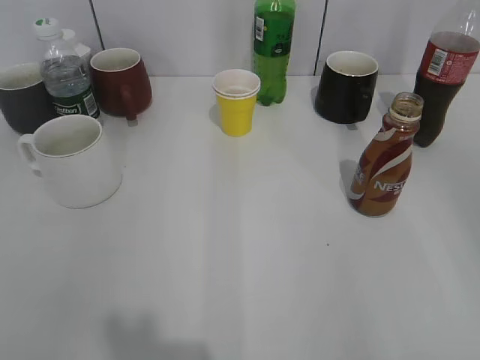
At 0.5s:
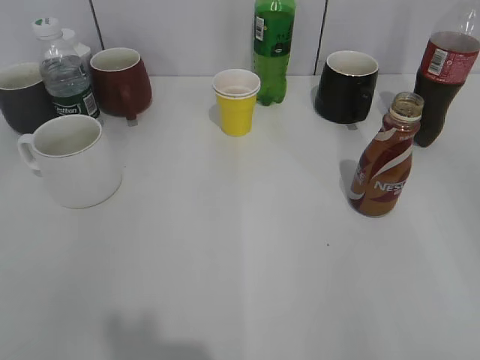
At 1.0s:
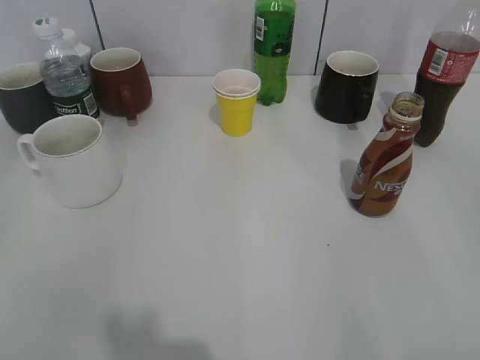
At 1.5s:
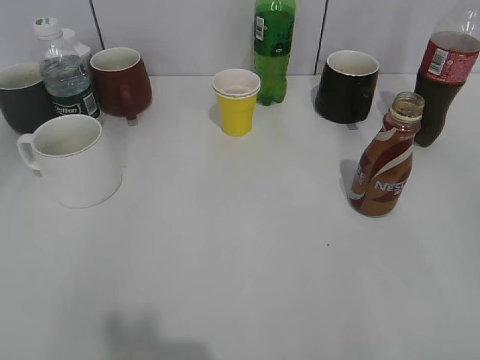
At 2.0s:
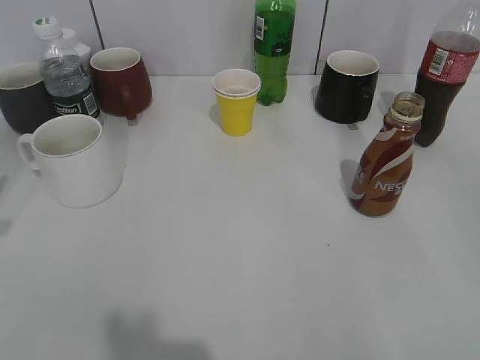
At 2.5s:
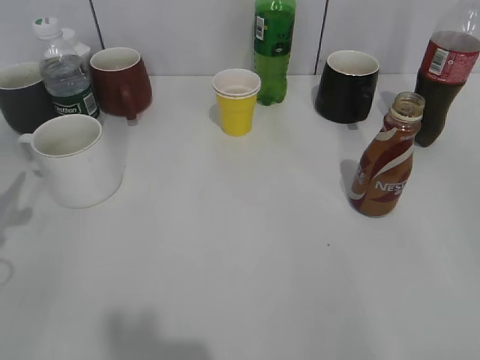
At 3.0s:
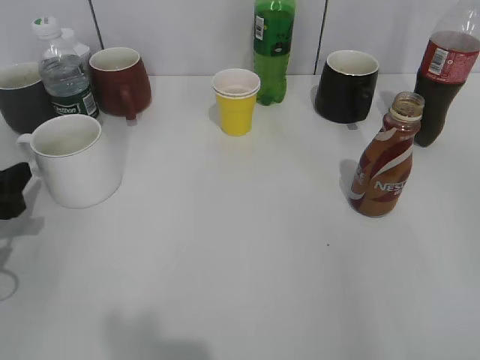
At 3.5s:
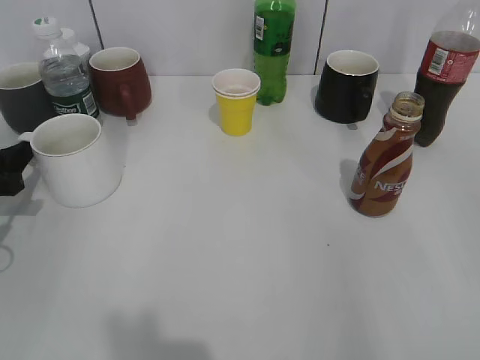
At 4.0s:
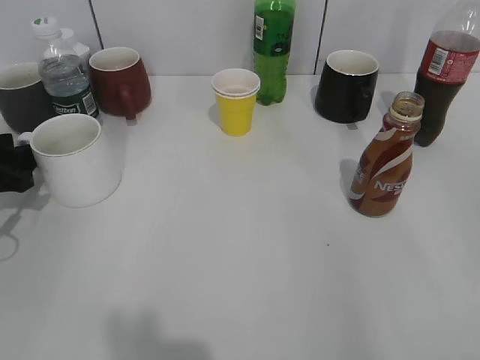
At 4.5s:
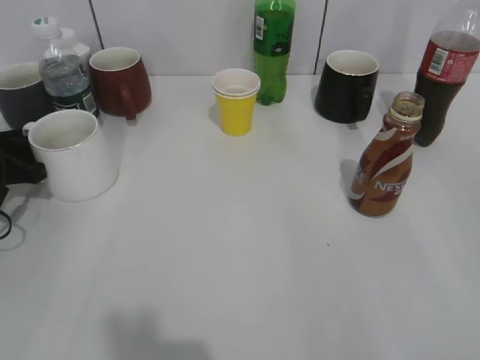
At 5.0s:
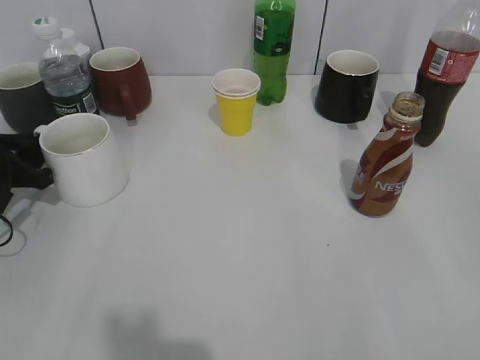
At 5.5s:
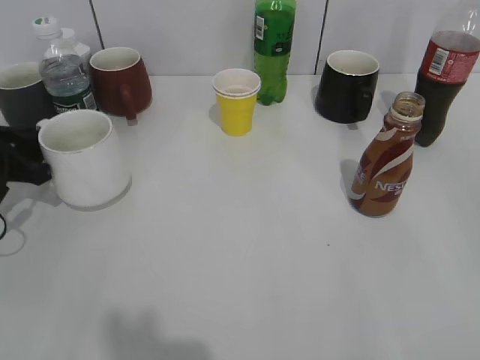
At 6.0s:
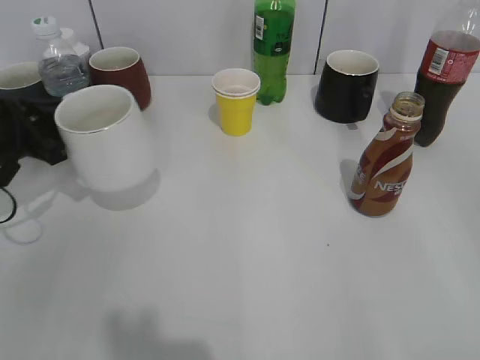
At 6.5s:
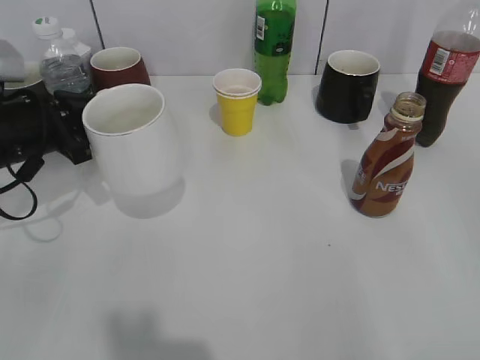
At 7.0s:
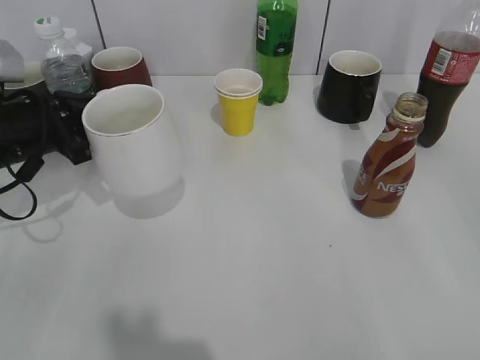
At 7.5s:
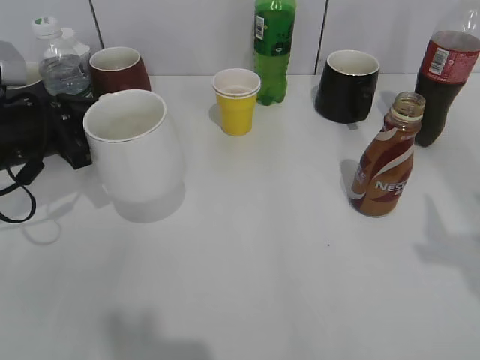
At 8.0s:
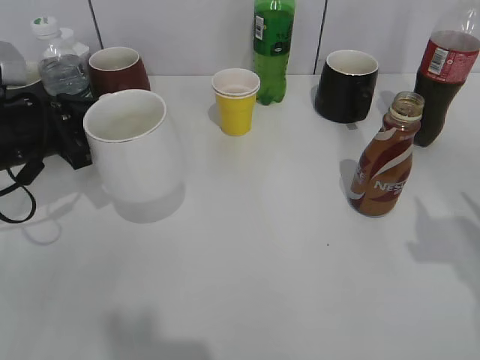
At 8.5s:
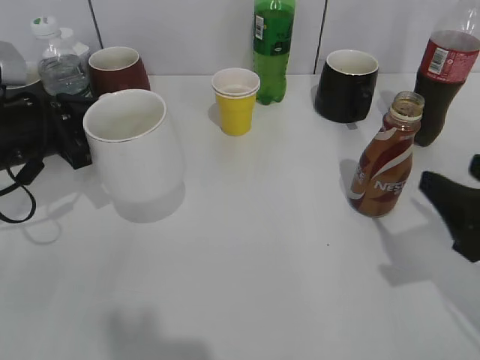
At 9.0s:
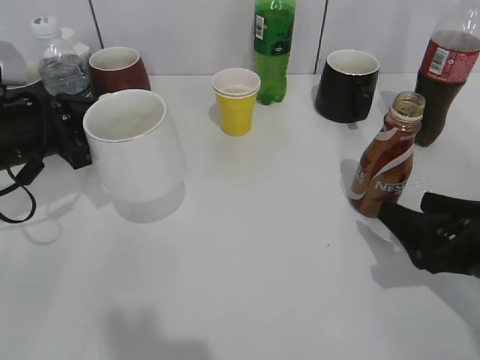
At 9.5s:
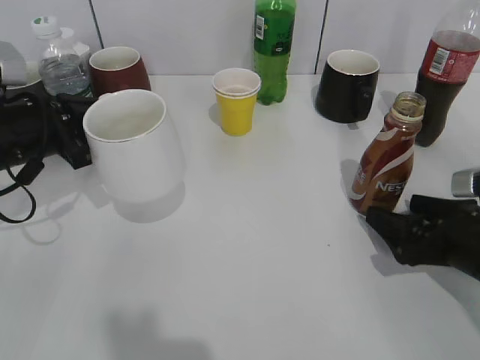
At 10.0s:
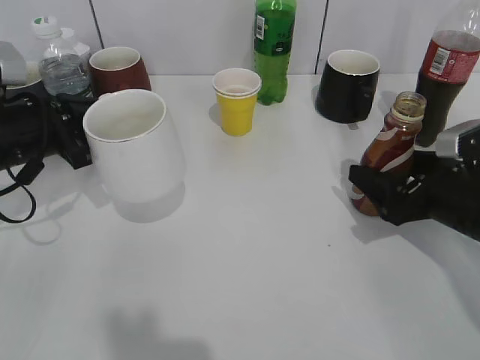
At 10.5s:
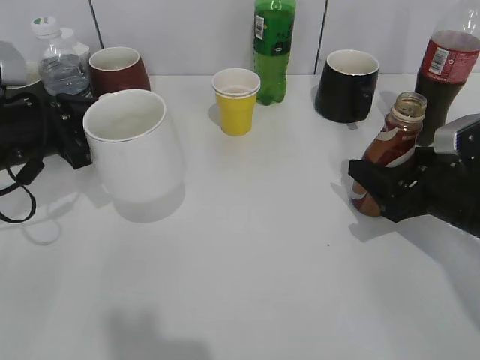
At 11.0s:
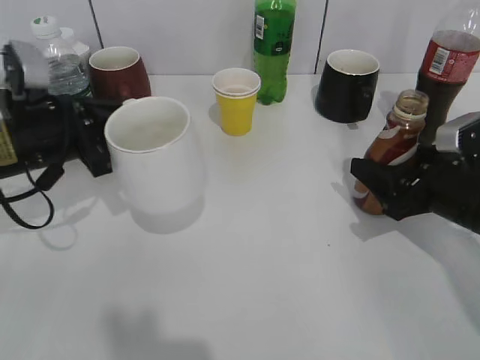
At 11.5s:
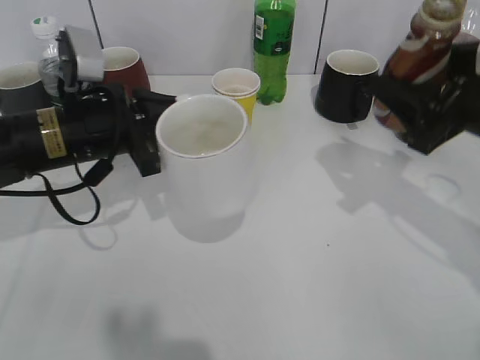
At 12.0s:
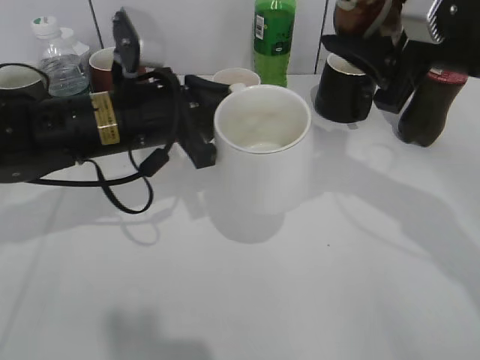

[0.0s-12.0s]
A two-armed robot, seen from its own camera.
Step, 2.0s to 5.0s: Grasp the white cup with left gripper.
Step, 5.5s to 6.5s: Lift the white cup with left gripper.
Step, 7.0s to 11.0s: Grasp the bottle with coffee with right gripper.
2.0s to 4.0s: The left gripper travels forward and downward by roughly 15 cm.
4.0s to 6.0s: The left gripper shifts by roughly 5 cm, and closes.
6.0s to 8.0s: The right gripper travels forward by some 15 cm.
8.0s to 10.0s: The right gripper moves downward and forward, about 15 cm, and opens its fingers.
10.0s to 12.0s: The right gripper is displaced upward by some 15 cm, and closes up, while the left gripper is displaced to the right by about 15 cm.

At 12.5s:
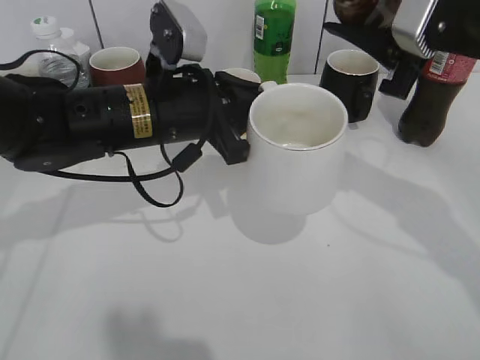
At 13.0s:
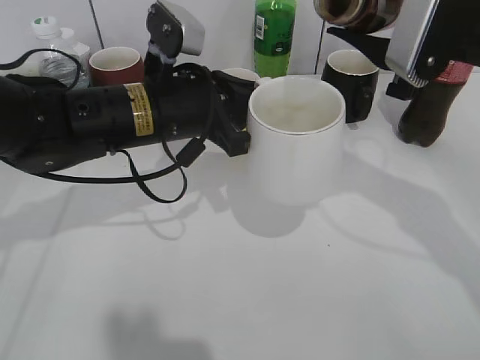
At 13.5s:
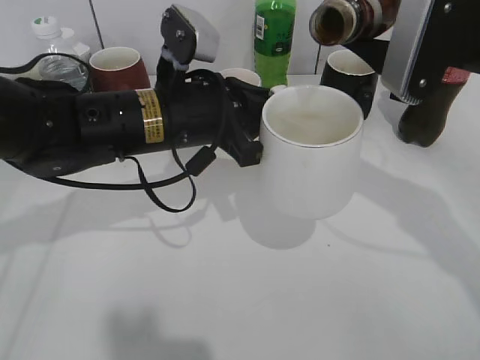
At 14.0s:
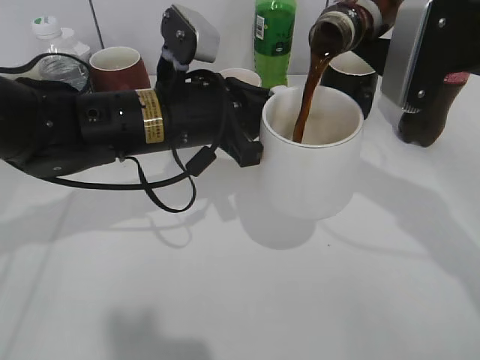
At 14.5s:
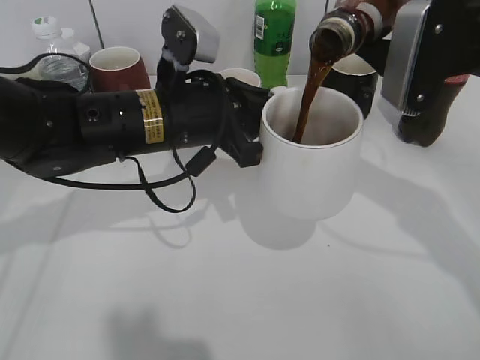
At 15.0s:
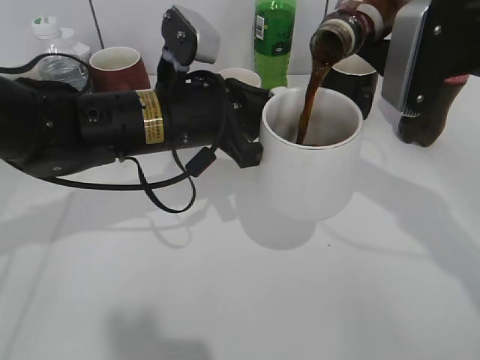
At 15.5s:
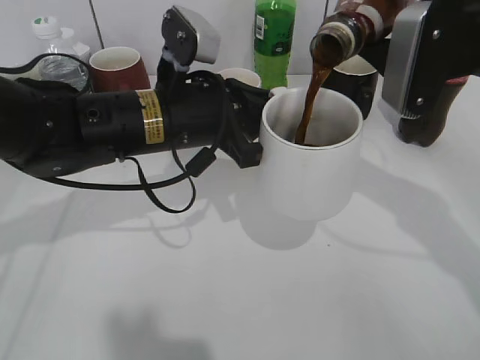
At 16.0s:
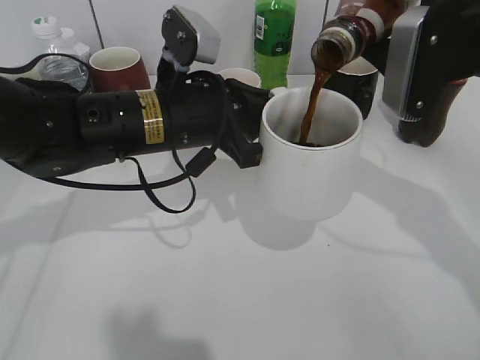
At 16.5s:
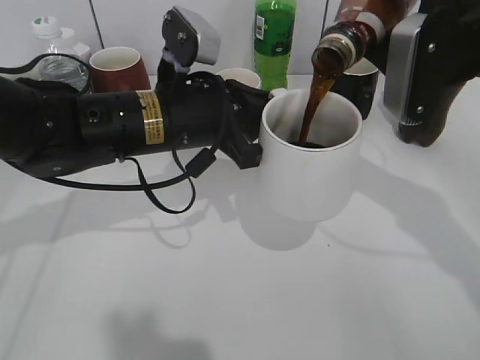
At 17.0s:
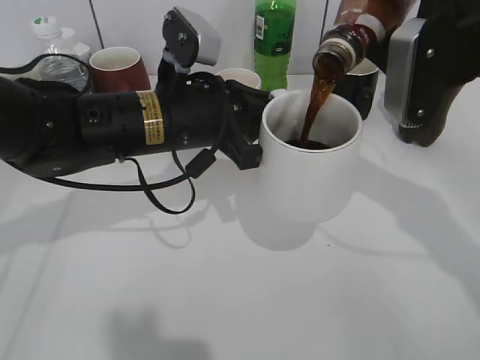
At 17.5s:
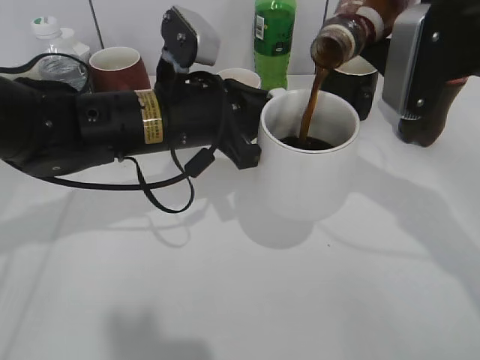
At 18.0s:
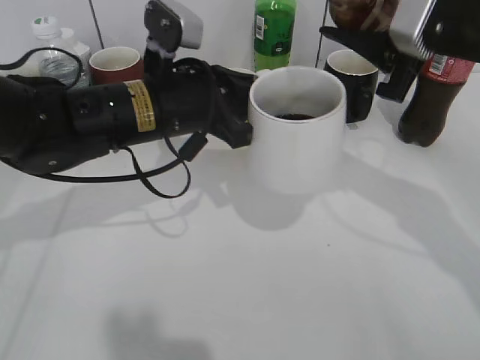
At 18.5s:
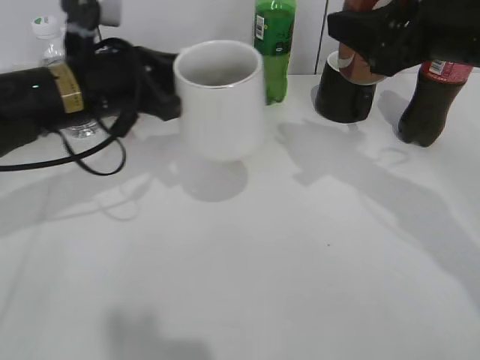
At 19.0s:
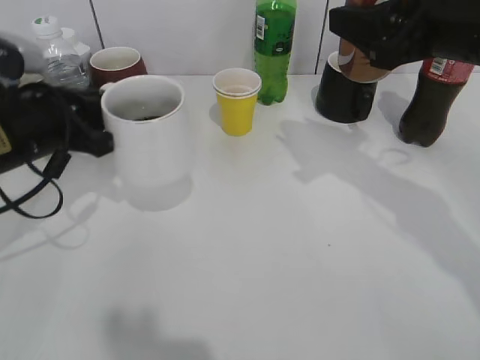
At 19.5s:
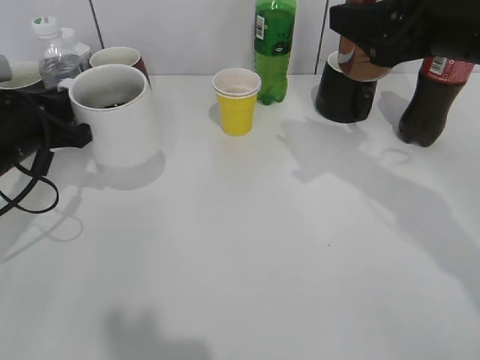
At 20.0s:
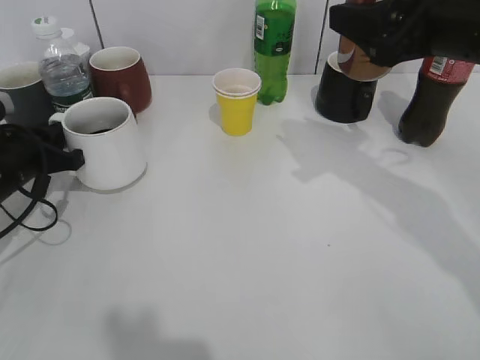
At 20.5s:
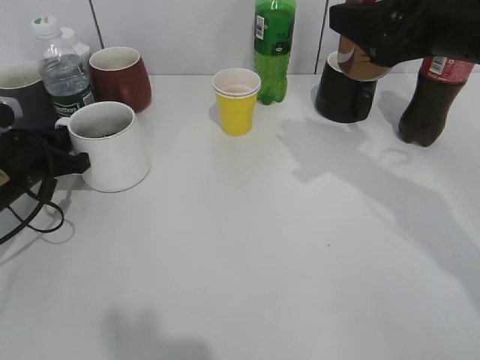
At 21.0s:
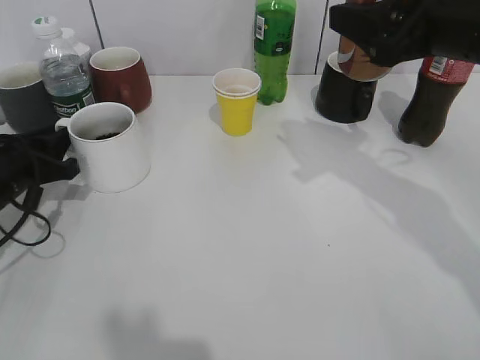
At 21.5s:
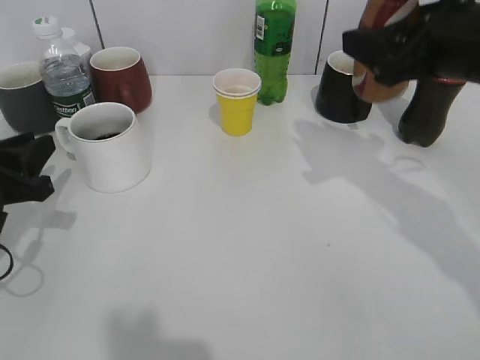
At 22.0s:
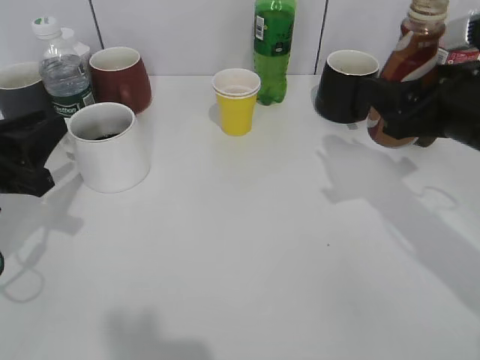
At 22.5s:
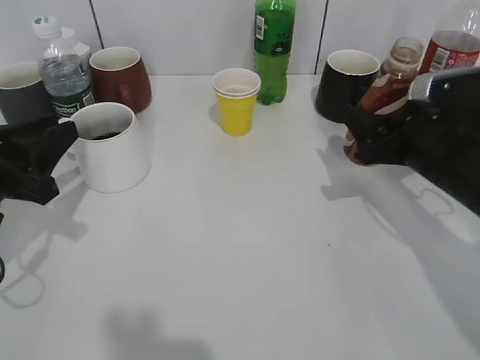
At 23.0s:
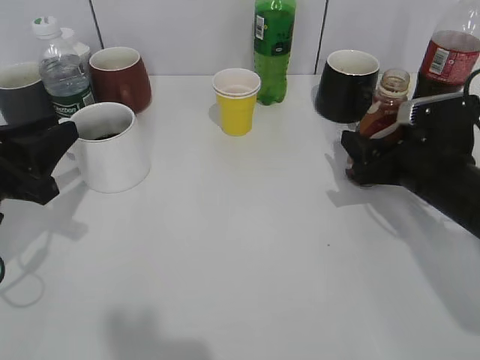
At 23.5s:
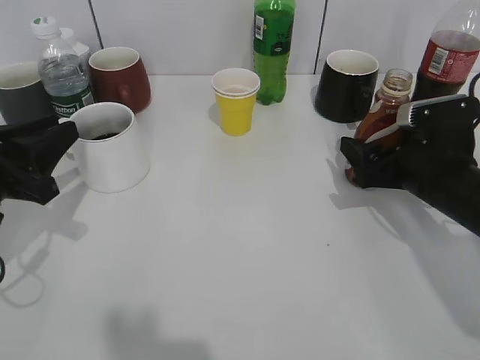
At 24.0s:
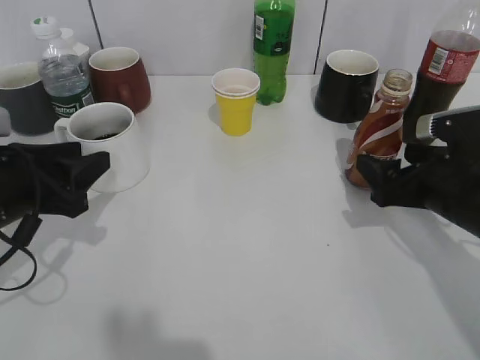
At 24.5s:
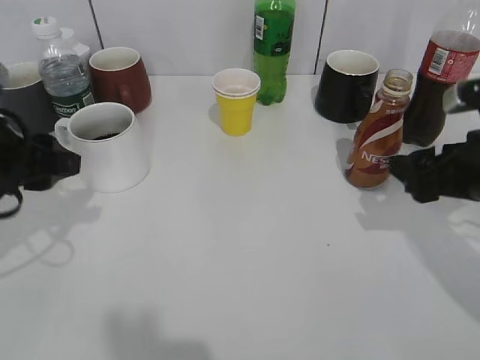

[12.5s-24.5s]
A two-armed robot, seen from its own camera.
Step, 12.5s to 17.5s: Pour the coffee from bottle to cup with right gripper.
Step, 18.0s to 21.0s: Place the white cup on the table with left gripper.
Step, 21.5s to 23.5s: Place the coffee bottle on the table with right gripper.
14.5s to 16.5s: The grippers make only small movements.
16.5s to 18.5s: The left gripper moves to the left, roughly 10 cm.
18.5s to 20.5s: The left gripper travels to the left and downward by roughly 15 cm.
20.5s to 22.5s: The left gripper travels backward and upward by approximately 10 cm, and opens. Meanwhile the right gripper travels downward by some 15 cm.
22.5s to 24.5s: The right gripper ends up some 5 cm from where it was, and opens its fingers.

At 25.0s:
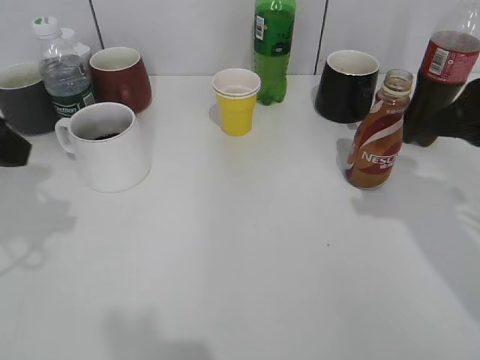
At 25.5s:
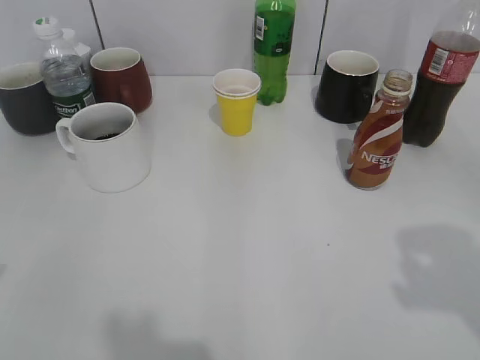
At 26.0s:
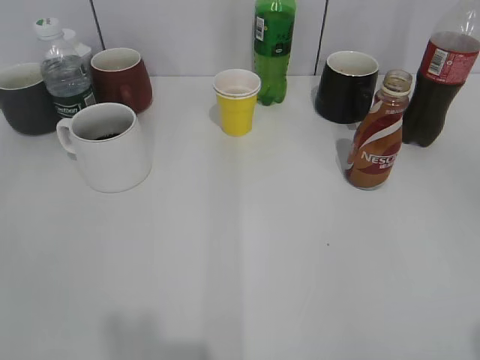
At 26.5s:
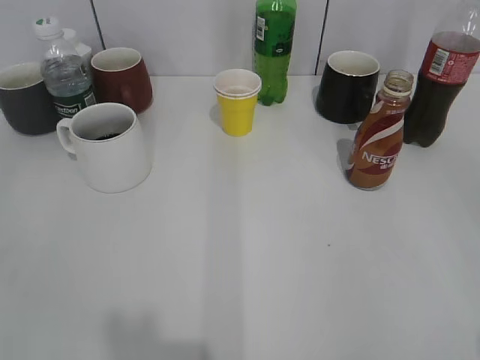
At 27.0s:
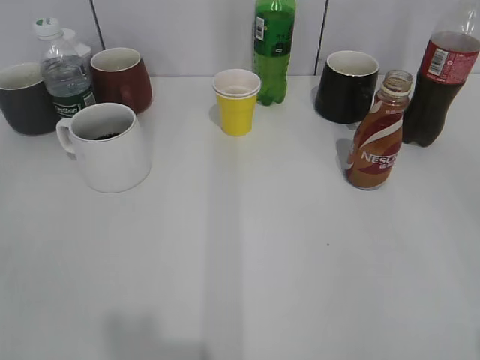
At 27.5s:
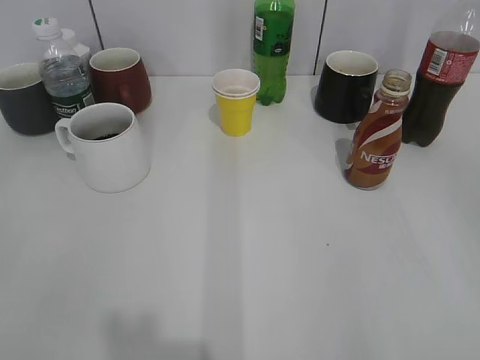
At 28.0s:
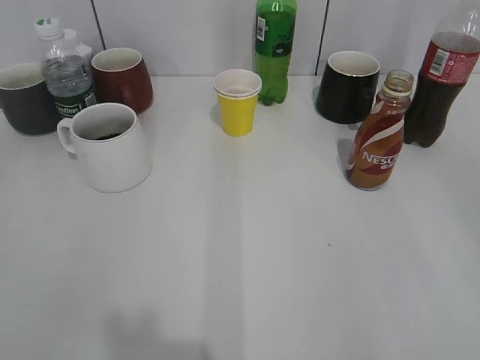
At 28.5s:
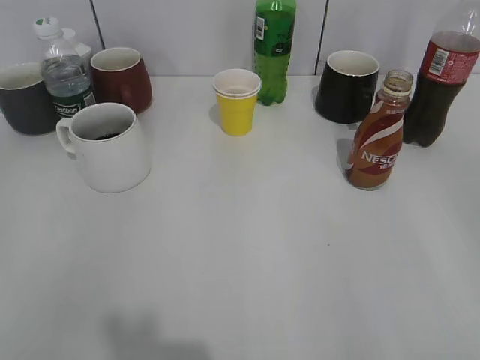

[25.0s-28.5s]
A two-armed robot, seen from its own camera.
25.0s to 27.0s: The two grippers go approximately 20 cm backward.
